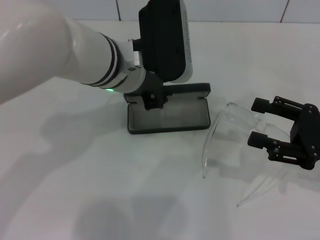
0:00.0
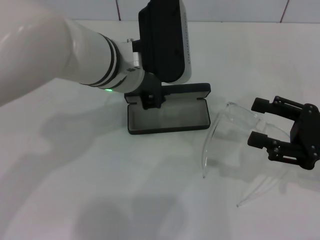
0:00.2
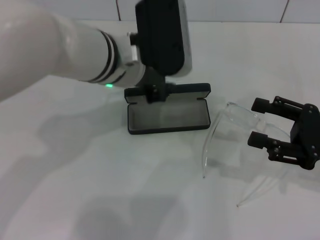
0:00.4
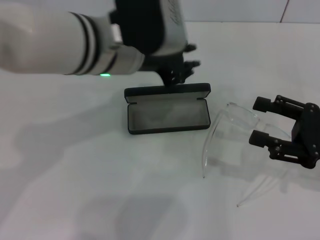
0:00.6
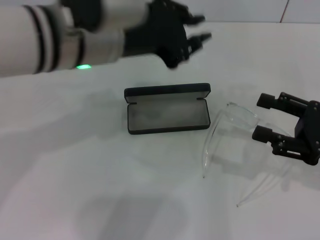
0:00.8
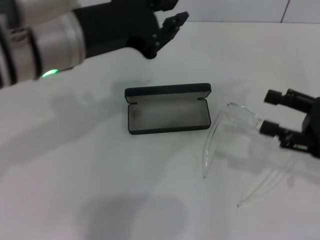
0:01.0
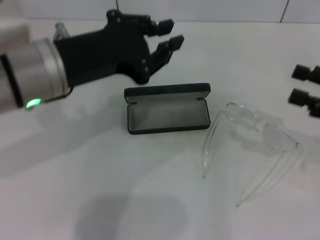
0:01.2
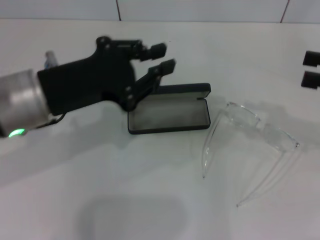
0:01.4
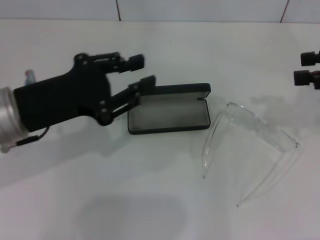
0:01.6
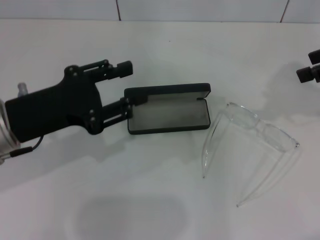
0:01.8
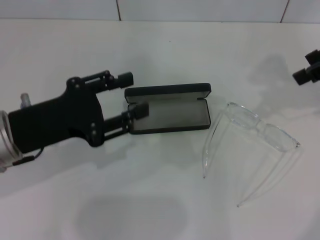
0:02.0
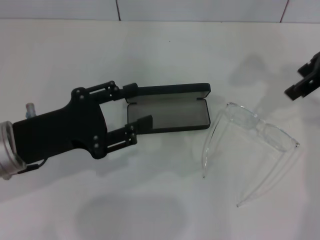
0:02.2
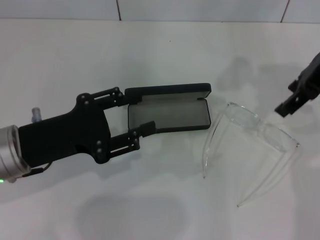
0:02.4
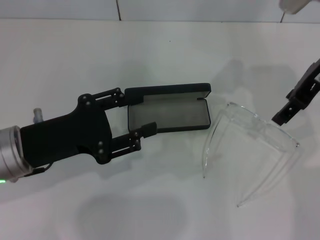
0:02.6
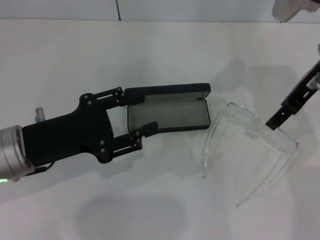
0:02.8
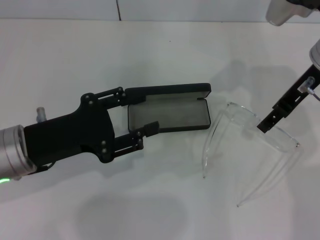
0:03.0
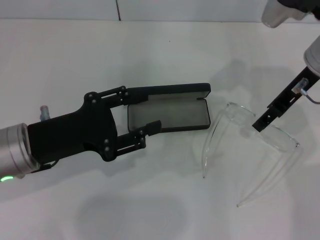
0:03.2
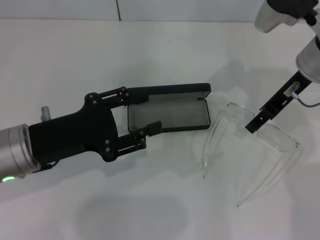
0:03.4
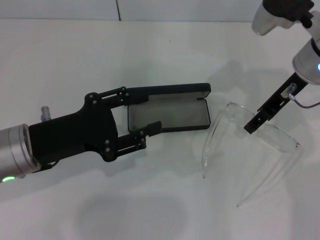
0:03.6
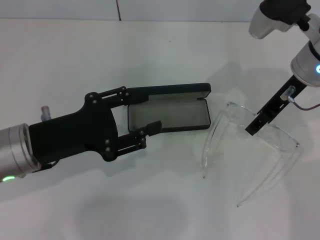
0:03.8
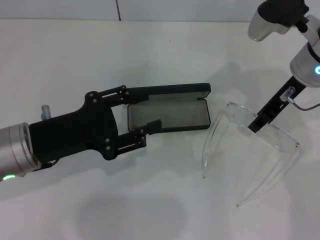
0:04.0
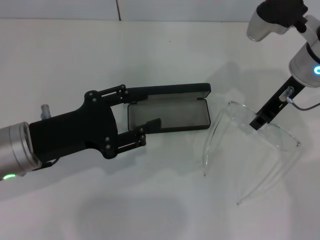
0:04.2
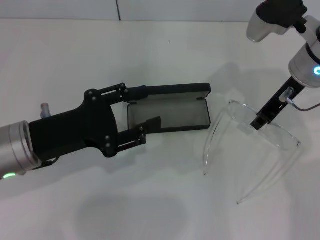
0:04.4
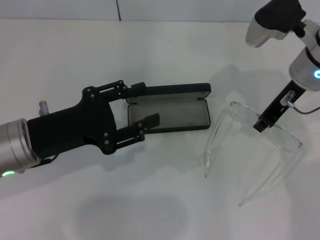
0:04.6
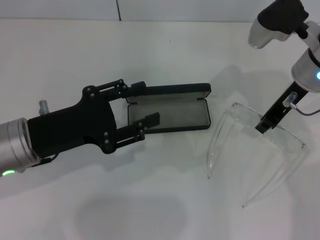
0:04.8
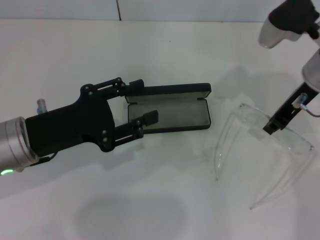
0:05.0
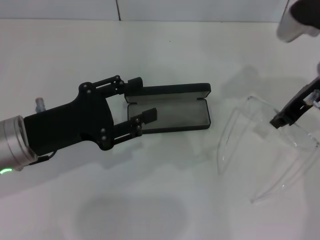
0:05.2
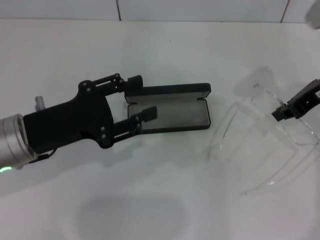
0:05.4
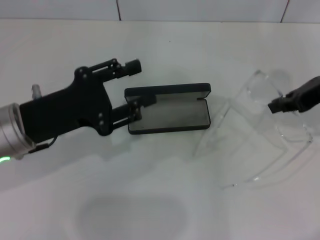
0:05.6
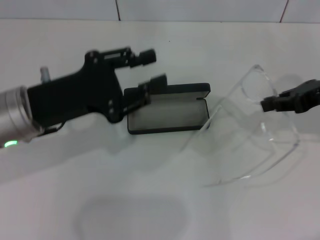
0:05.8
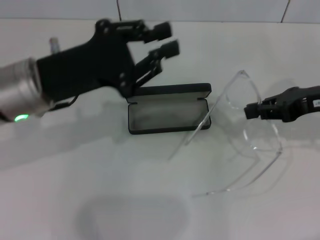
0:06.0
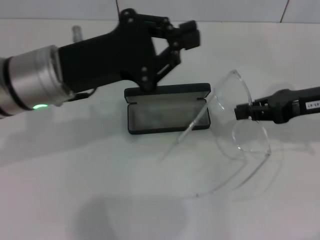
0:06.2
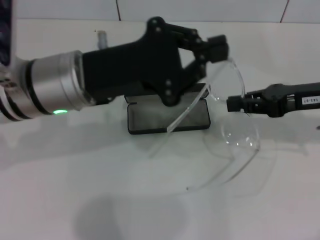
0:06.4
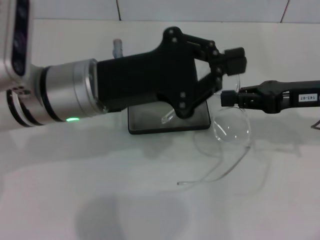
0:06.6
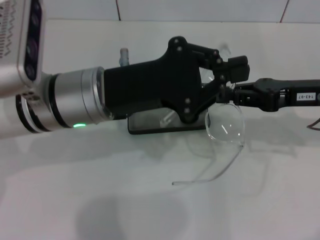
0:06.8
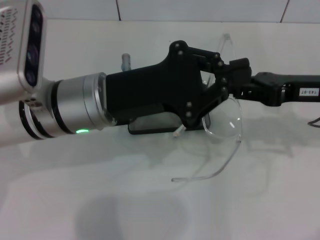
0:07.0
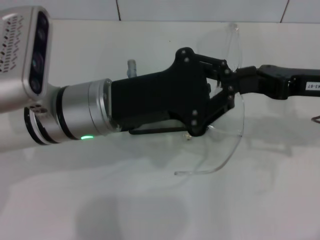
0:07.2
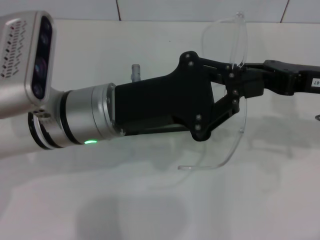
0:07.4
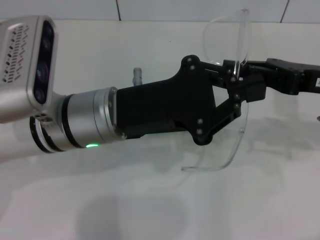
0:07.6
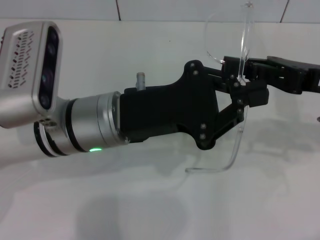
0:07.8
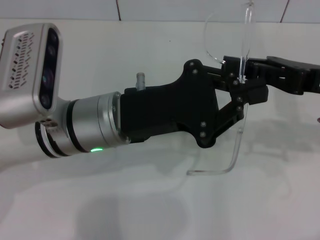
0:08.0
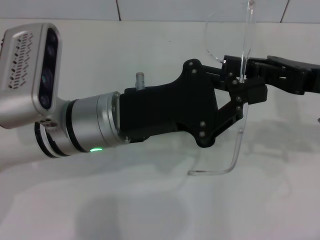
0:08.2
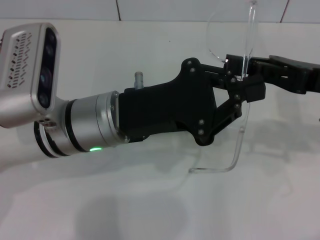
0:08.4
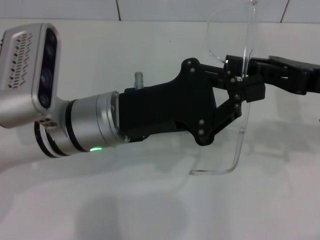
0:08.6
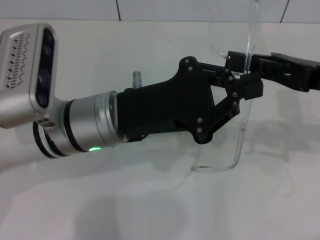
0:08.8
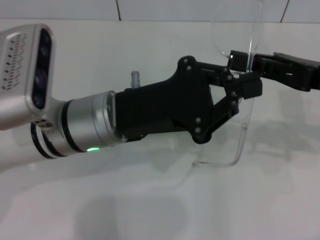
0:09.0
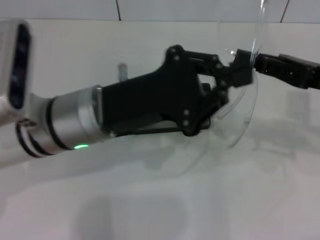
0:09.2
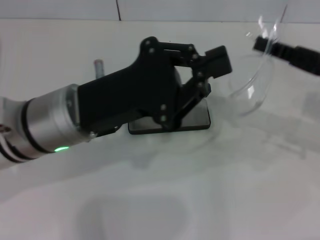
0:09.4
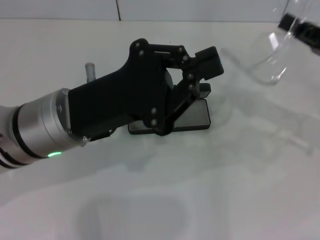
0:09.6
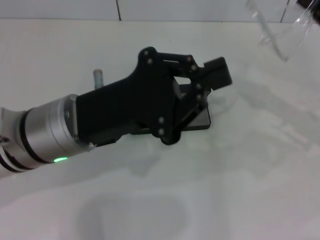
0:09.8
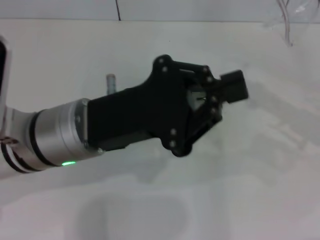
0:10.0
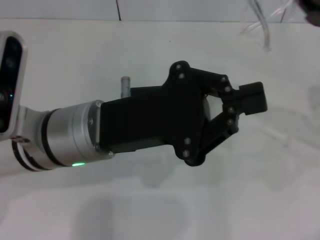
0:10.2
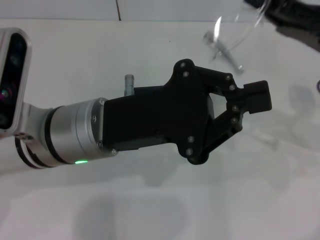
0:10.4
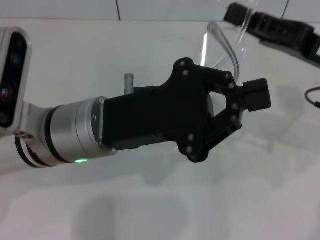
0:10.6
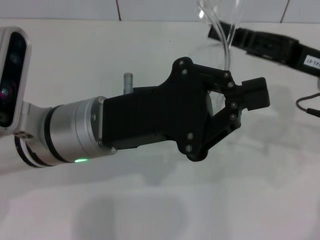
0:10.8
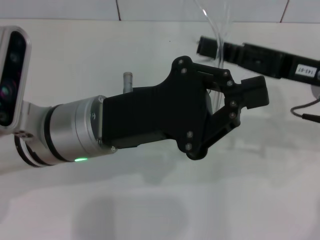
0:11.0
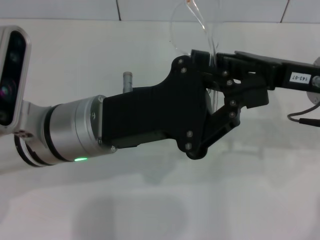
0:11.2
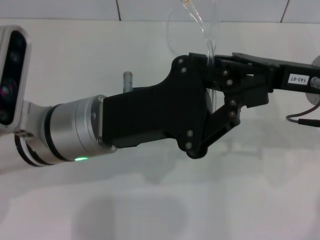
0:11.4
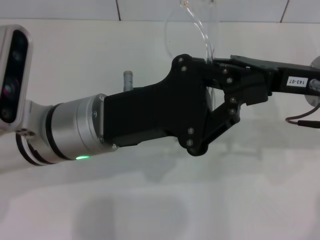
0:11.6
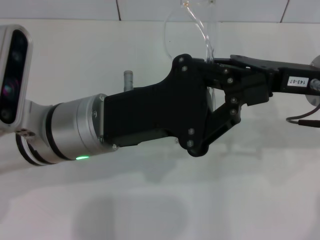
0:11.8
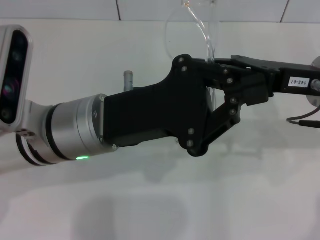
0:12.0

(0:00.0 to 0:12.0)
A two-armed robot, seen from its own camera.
Step, 0:00.4 - 0:04.4: Grab the eyeglass frame with your right hand.
0:00.0 - 0:01.6: The left gripper is displaced to the left and backward by about 15 cm. The right gripper moves upward and forward, some 15 cm.
0:01.6 - 0:03.0: The left gripper ends up roughly 5 cm from where it was, while the right gripper is displaced to the left and forward by approximately 15 cm.
0:03.0 - 0:04.4: The right gripper closes.
0:04.4 - 0:06.0: The left gripper goes some 5 cm upward; the right gripper goes approximately 10 cm to the right and backward.
0:06.0 - 0:07.6: The left gripper is displaced to the right by about 10 cm, and closes its fingers.
0:07.6 - 0:09.0: The grippers make only small movements.

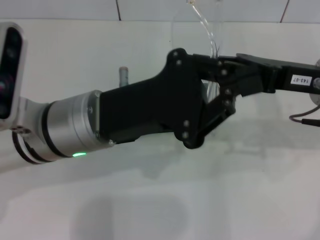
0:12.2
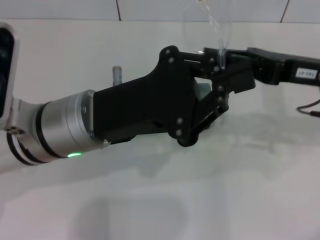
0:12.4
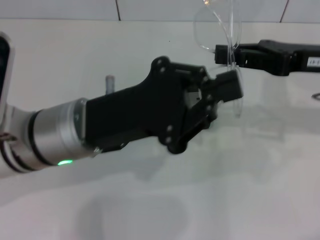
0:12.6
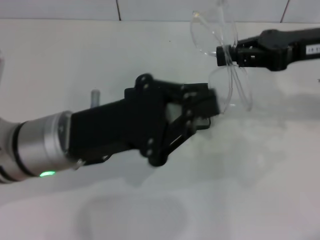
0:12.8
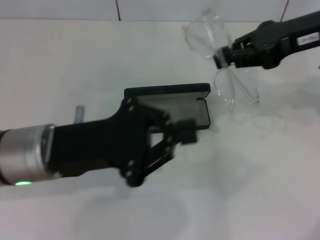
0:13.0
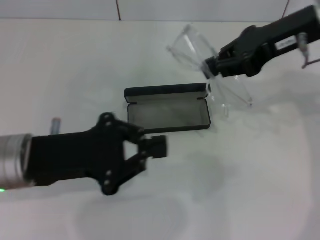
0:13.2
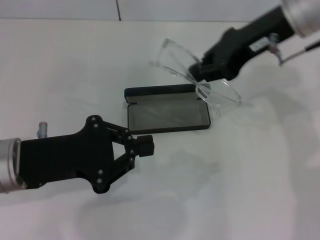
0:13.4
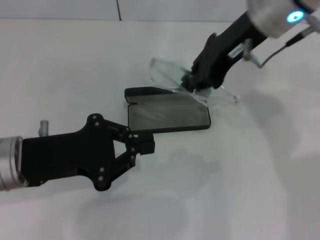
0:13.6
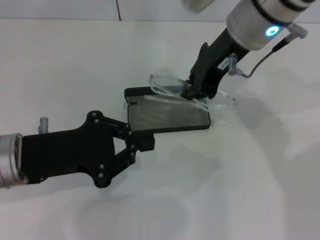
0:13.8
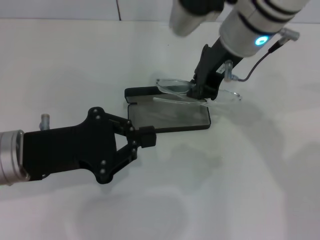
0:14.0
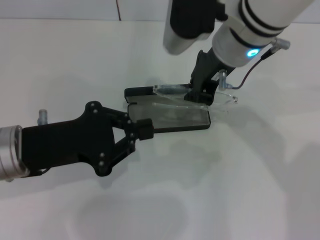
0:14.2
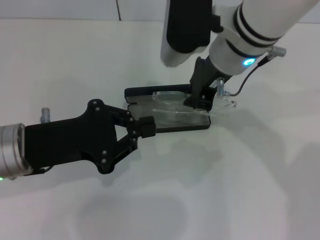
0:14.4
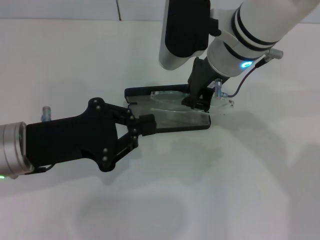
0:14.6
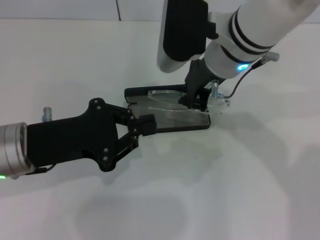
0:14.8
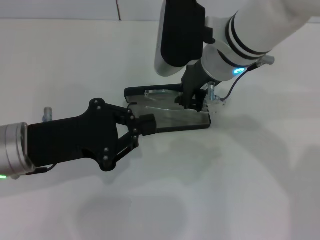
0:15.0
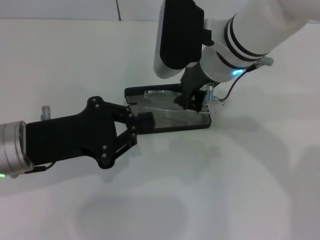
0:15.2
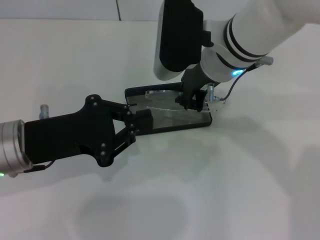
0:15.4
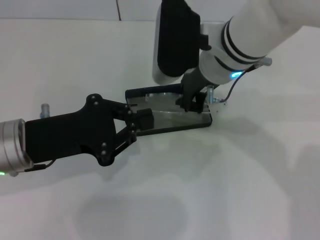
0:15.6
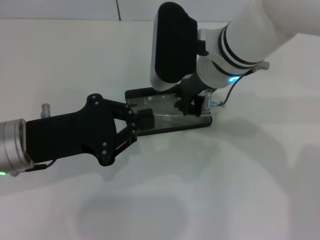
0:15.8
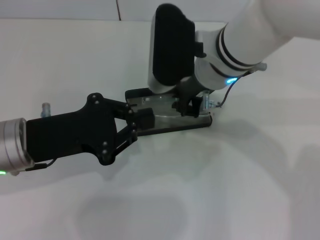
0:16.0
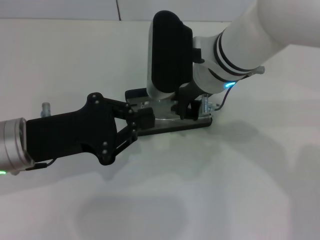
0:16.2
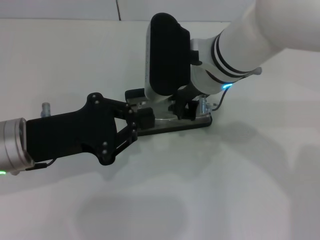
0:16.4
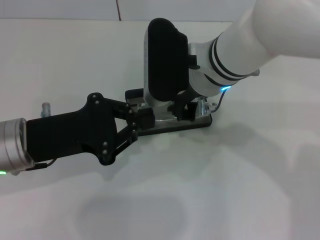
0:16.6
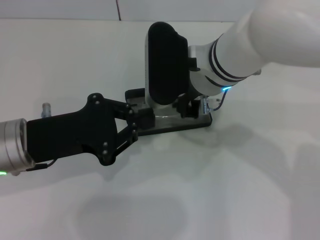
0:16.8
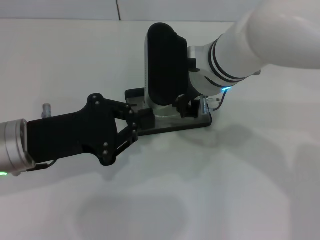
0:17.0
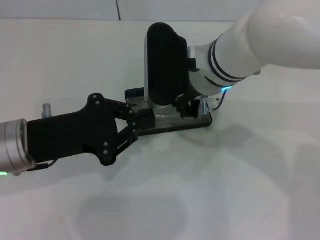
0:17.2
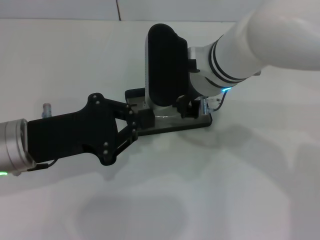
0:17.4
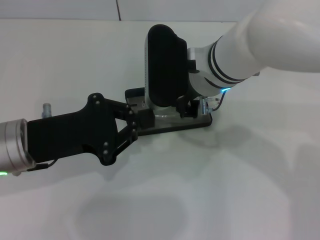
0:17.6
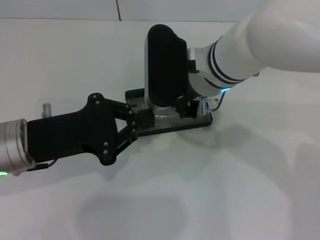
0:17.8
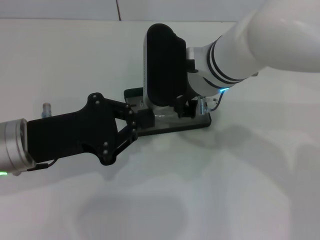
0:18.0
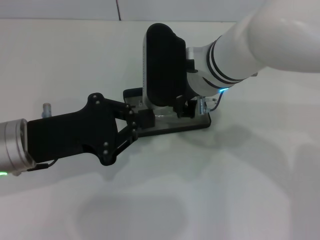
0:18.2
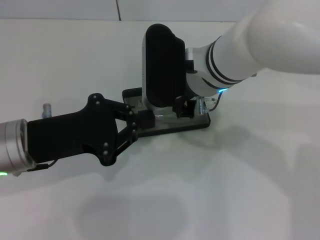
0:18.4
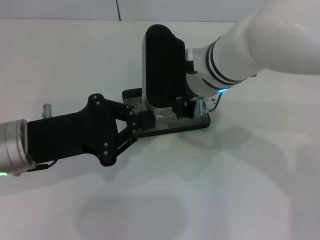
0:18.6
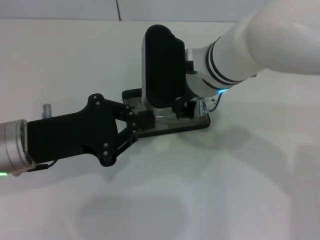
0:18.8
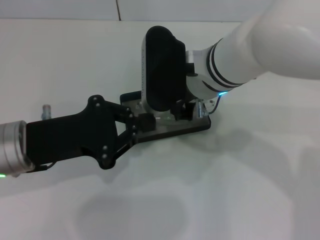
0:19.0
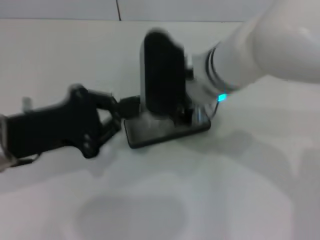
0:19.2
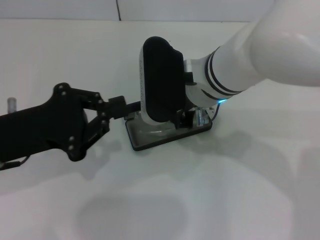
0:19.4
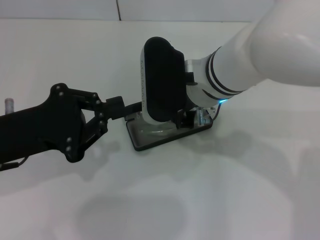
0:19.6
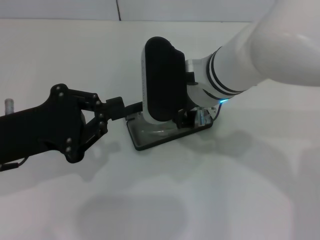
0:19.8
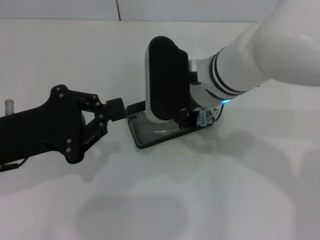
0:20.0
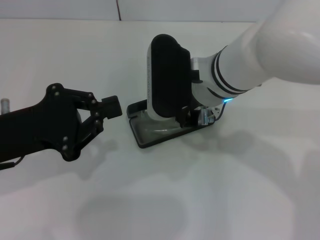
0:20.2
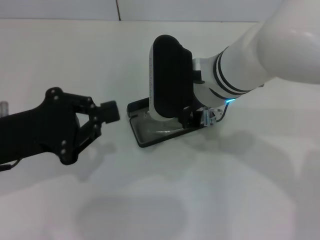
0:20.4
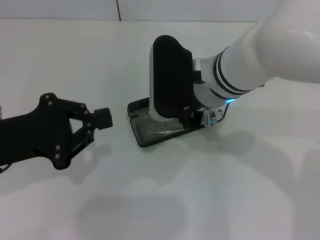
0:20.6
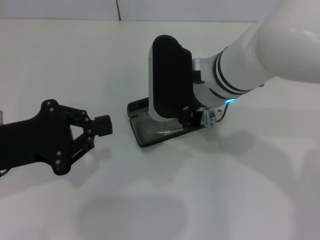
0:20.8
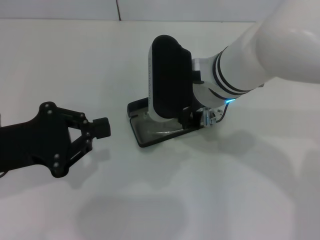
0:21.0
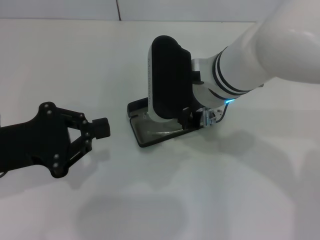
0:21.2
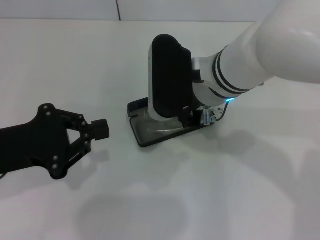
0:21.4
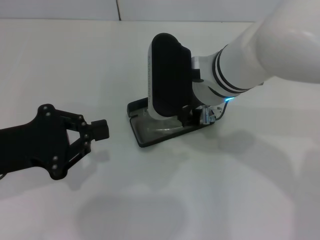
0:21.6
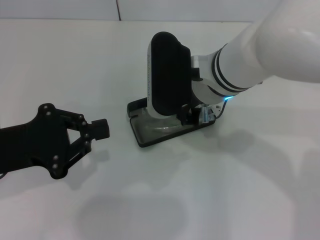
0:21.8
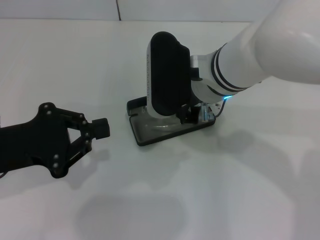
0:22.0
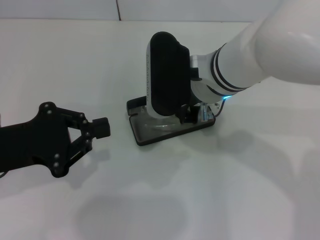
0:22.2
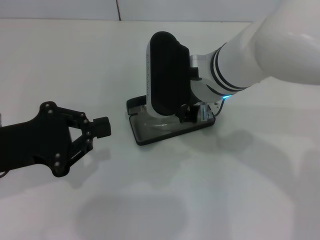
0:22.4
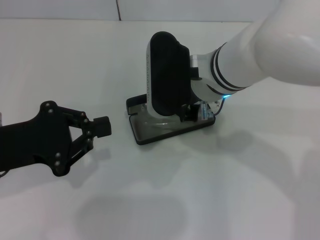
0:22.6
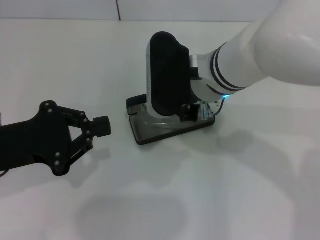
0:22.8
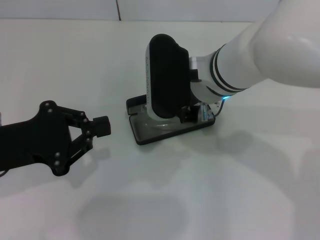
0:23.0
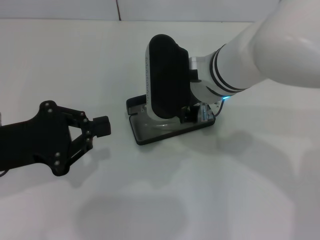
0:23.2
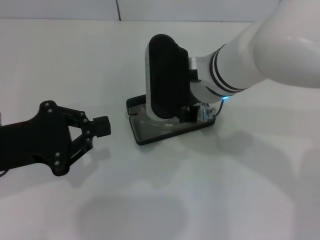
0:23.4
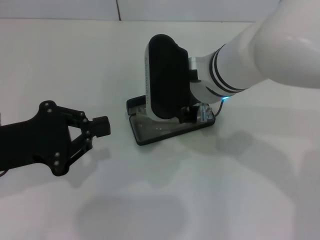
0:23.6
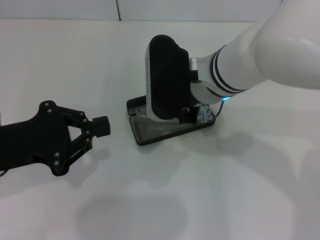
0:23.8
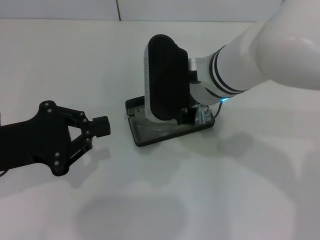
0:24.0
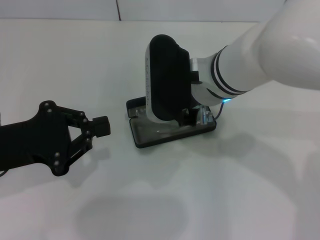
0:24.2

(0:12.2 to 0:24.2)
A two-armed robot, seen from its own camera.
0:12.2 - 0:13.8: The right gripper shifts about 15 cm to the left, upward and forward. The left gripper shifts approximately 10 cm to the left.
0:13.8 - 0:15.2: The right gripper is displaced downward by approximately 5 cm.
0:15.2 - 0:16.6: The grippers make only small movements.
0:16.6 - 0:18.2: Both grippers stay about where they are.
0:18.2 - 0:21.2: There are only small adjustments of the grippers.
0:21.2 - 0:24.2: Both grippers stay put.
